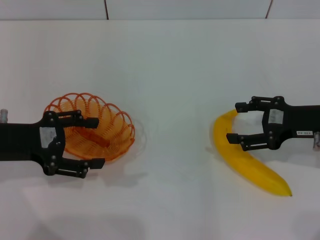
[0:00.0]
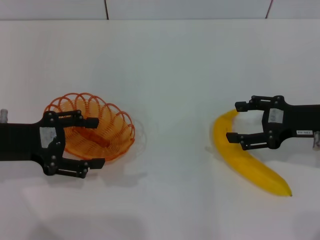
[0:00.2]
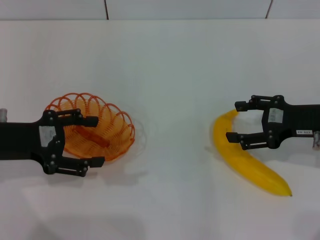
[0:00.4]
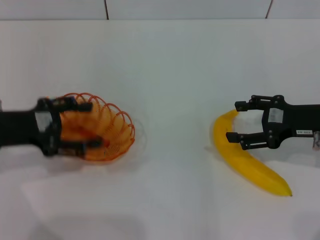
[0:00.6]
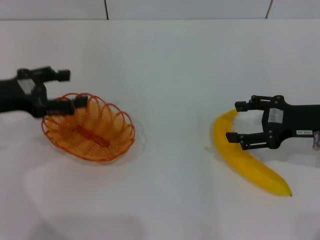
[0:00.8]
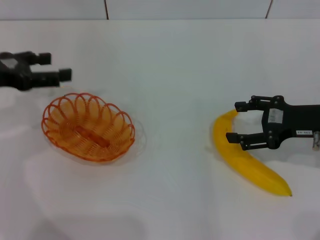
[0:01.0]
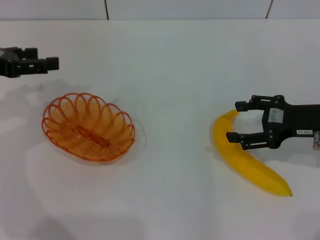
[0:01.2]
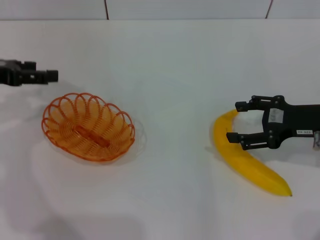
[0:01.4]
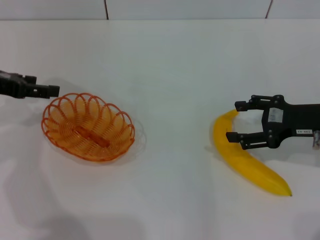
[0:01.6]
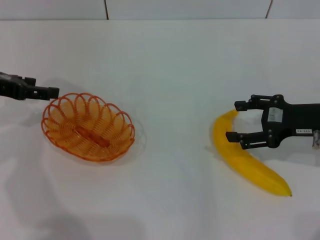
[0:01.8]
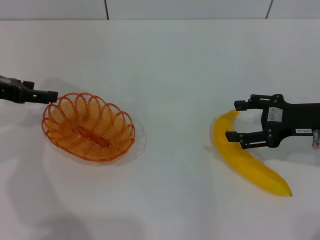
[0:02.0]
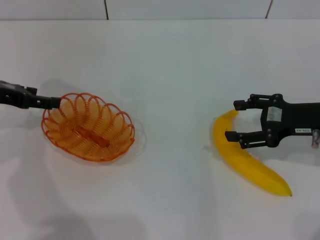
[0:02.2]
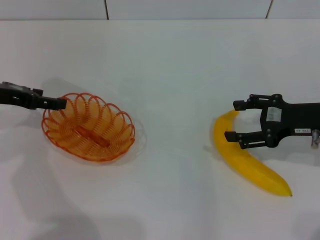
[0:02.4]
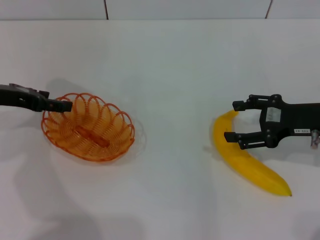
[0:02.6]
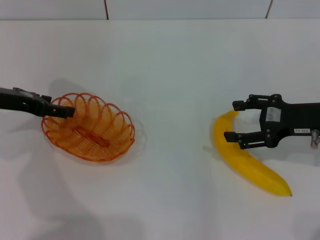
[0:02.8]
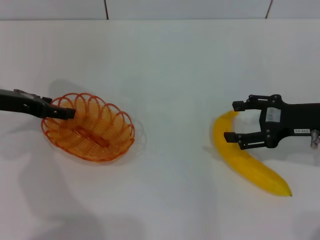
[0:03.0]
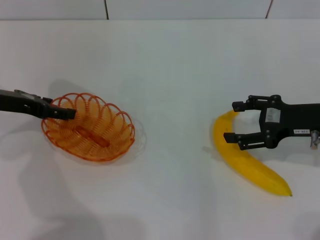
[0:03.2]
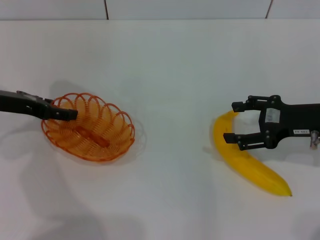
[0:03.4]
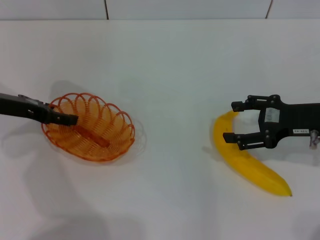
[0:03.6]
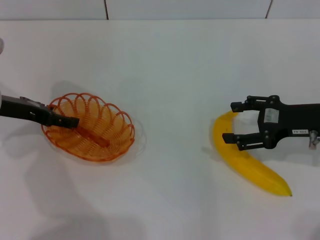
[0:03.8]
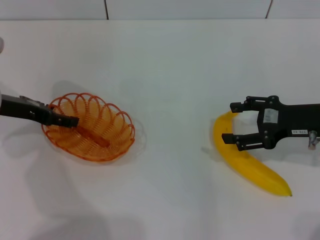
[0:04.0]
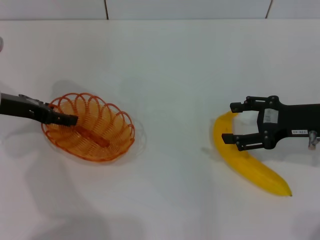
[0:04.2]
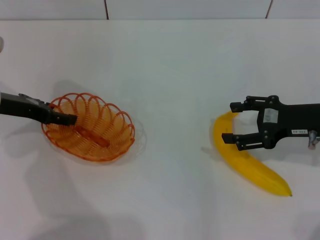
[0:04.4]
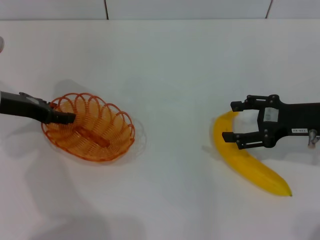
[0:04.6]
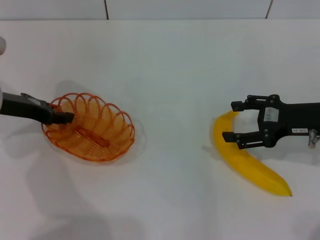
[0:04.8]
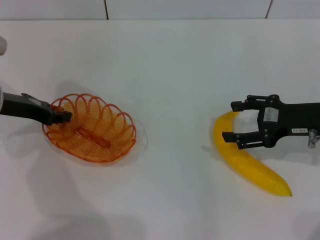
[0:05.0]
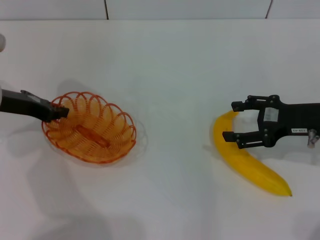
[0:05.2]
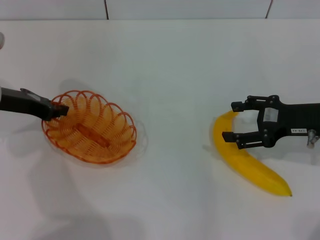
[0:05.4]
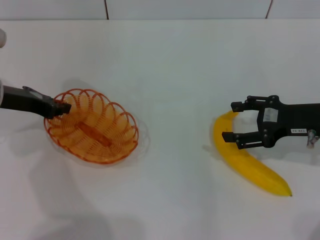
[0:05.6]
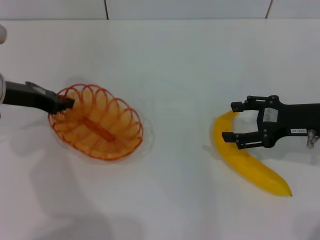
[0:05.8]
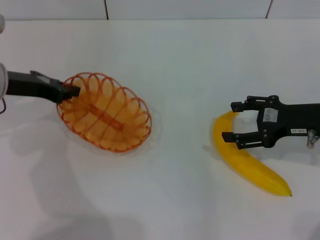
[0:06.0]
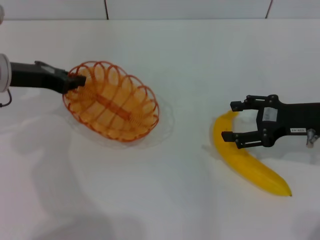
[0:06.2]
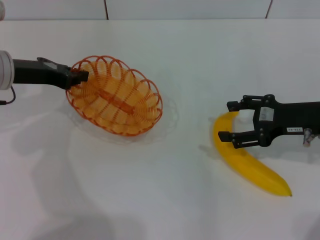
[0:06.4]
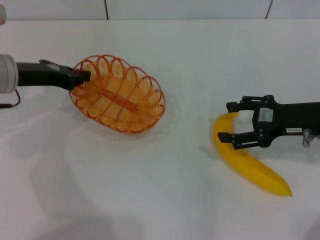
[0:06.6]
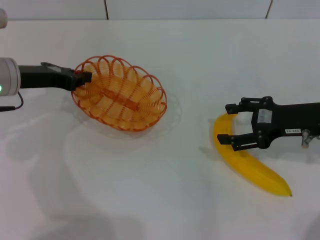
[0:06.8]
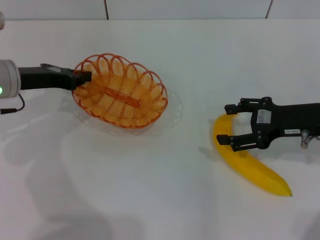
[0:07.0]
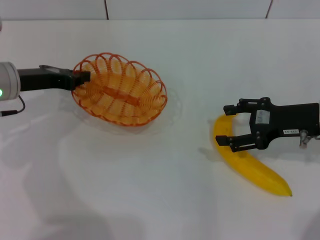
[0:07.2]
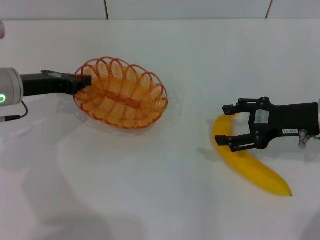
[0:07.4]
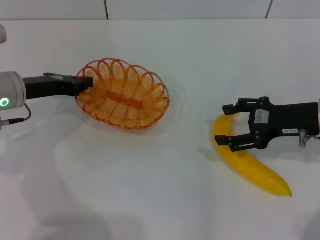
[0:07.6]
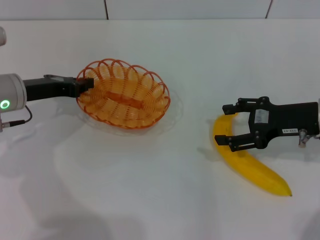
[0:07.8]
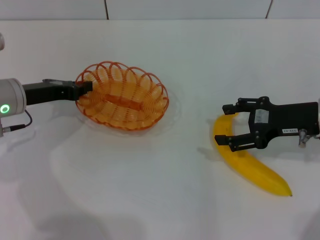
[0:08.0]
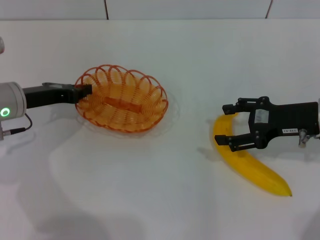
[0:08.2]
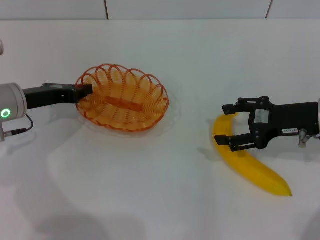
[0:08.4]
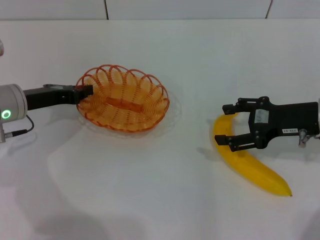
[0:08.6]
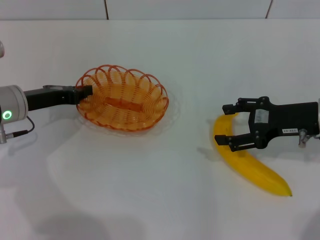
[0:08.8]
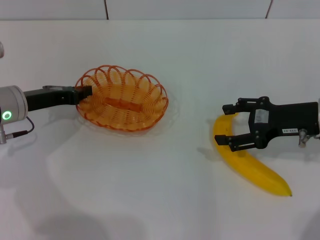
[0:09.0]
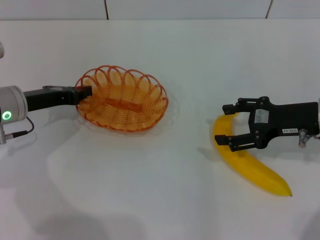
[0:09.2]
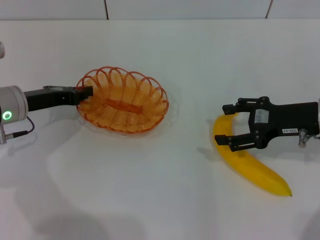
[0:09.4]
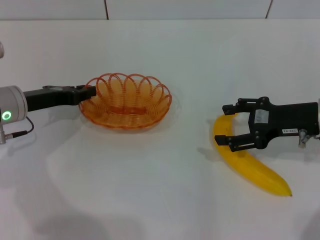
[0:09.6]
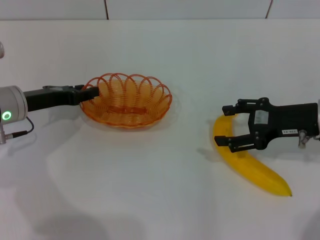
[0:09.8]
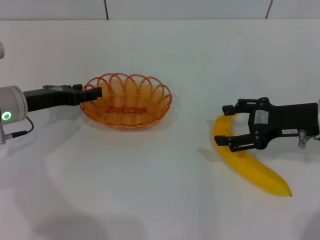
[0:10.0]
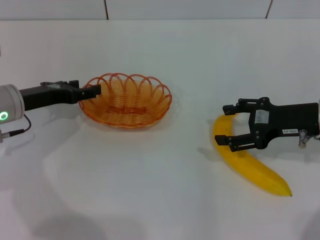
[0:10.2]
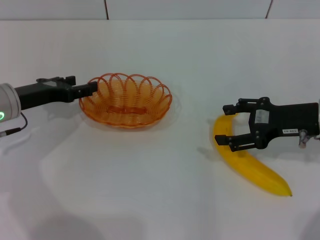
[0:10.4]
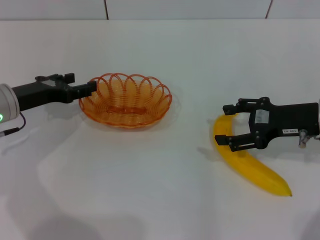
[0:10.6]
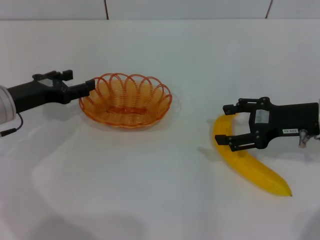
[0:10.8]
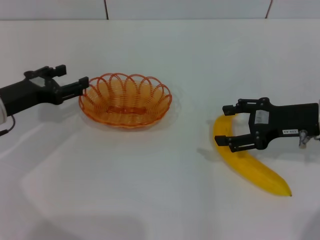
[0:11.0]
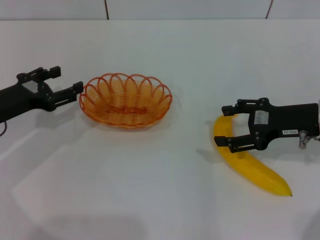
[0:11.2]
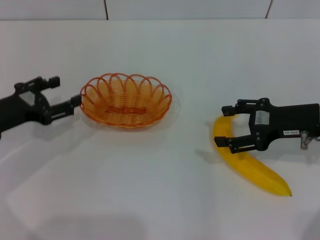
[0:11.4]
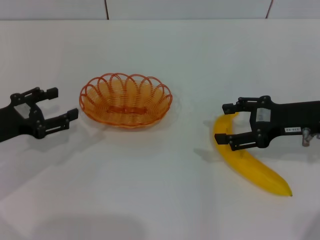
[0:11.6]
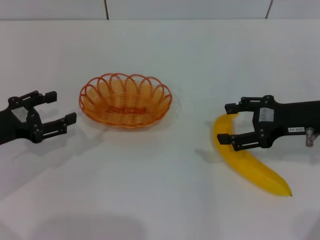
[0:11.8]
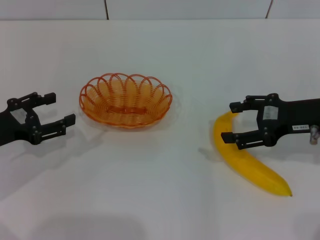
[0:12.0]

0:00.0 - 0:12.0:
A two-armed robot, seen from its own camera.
Step, 0:00.0 - 0:06.0: Pick up the basket with the left gripper.
Step, 0:06.2 - 0:11.0: Place the basket in the center of view with the left gripper.
0:00.0 - 0:01.6: The left gripper heads forward, covering about 5 cm.
0:01.6 - 0:03.0: The grippers stay close to where they were, moving slightly.
0:03.0 - 0:04.4: Both grippers stay about where they are.
0:04.4 - 0:06.0: The left gripper closes.
0:06.0 - 0:07.6: The grippers make only small movements.
0:07.6 - 0:09.0: The grippers move only a little.
0:09.0 - 0:10.4: The left gripper opens.
0:10.4 - 0:12.0: The left gripper goes some 5 cm backward.

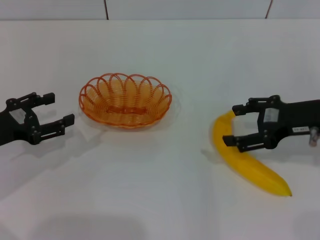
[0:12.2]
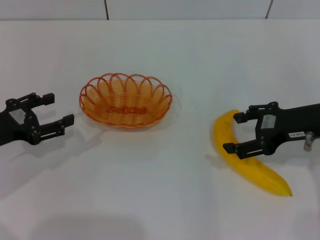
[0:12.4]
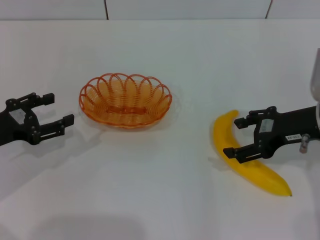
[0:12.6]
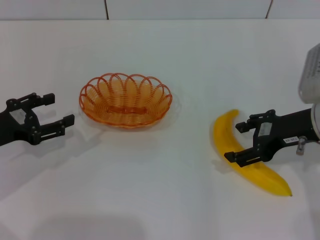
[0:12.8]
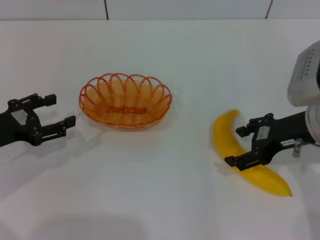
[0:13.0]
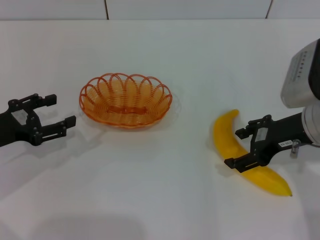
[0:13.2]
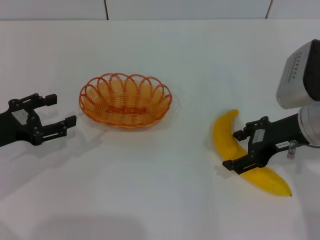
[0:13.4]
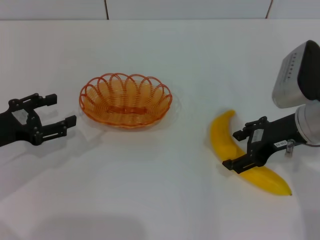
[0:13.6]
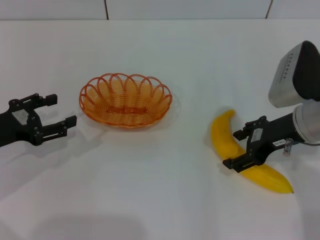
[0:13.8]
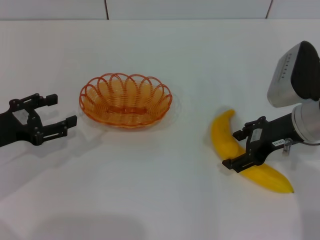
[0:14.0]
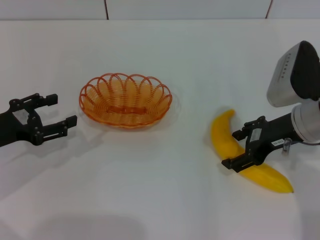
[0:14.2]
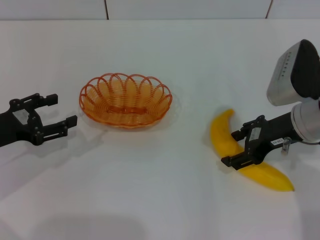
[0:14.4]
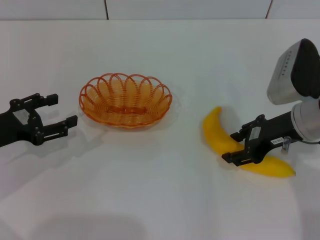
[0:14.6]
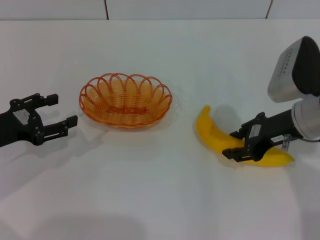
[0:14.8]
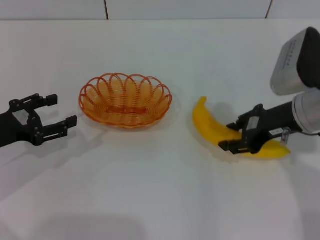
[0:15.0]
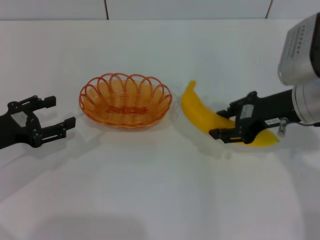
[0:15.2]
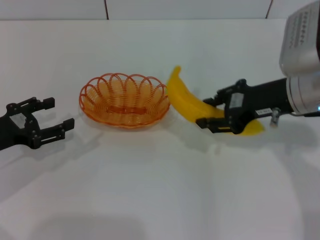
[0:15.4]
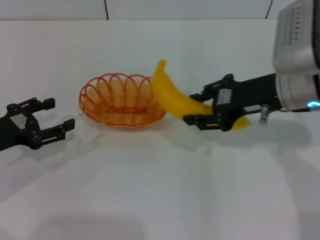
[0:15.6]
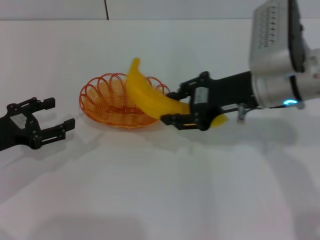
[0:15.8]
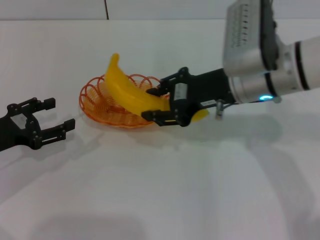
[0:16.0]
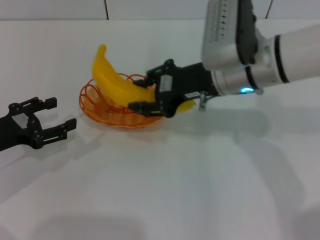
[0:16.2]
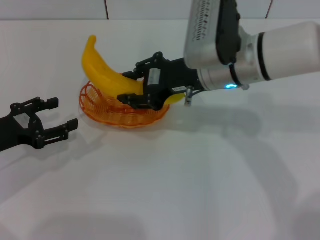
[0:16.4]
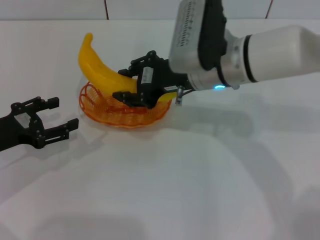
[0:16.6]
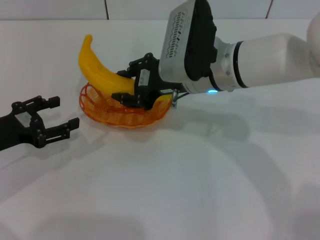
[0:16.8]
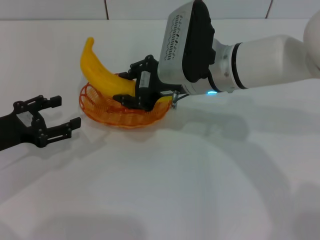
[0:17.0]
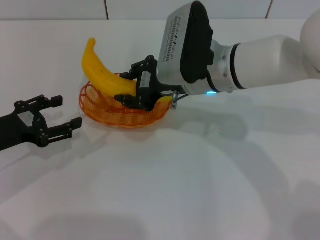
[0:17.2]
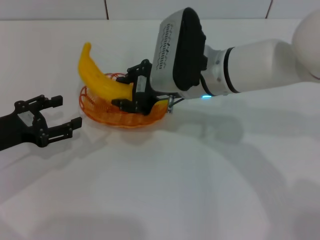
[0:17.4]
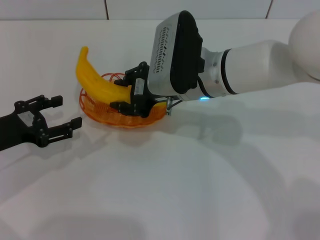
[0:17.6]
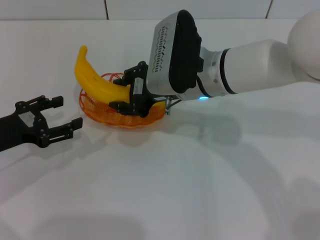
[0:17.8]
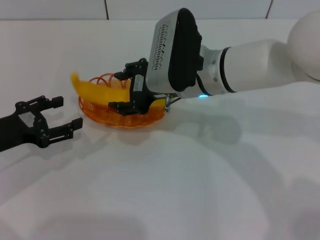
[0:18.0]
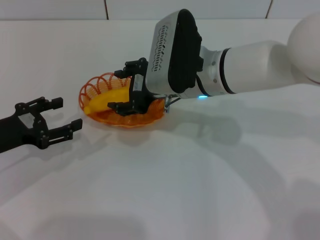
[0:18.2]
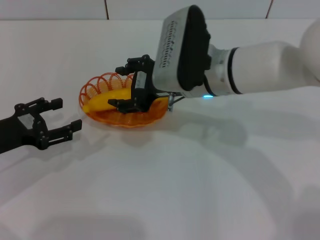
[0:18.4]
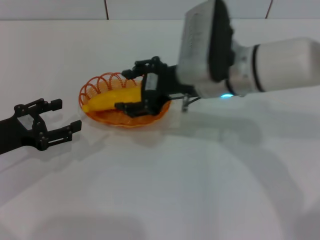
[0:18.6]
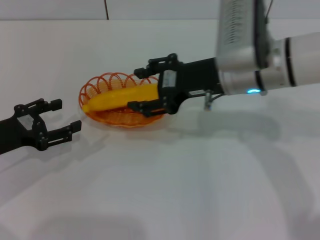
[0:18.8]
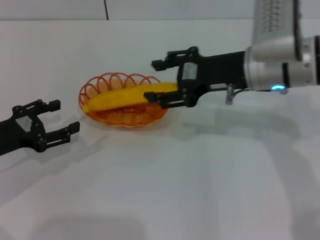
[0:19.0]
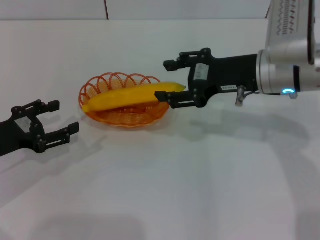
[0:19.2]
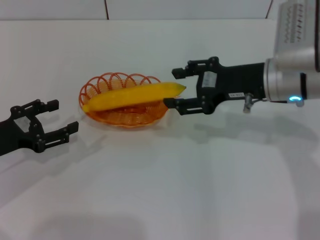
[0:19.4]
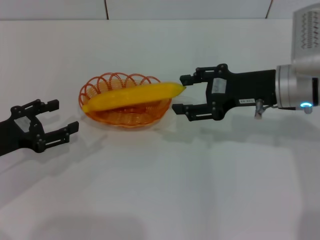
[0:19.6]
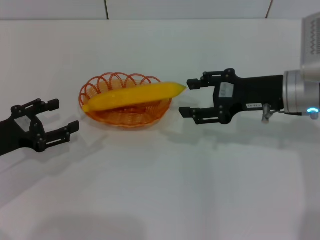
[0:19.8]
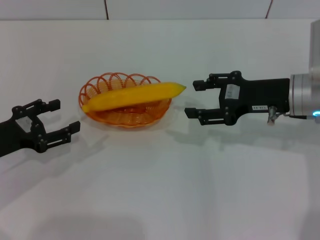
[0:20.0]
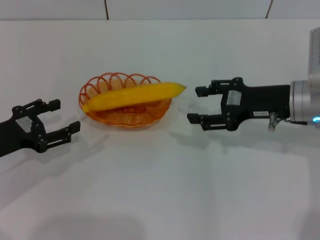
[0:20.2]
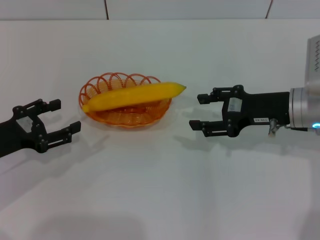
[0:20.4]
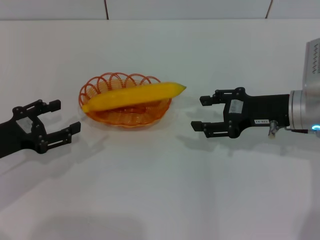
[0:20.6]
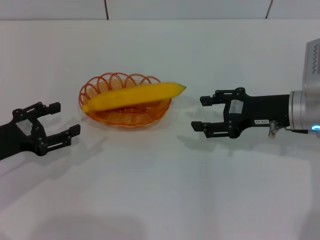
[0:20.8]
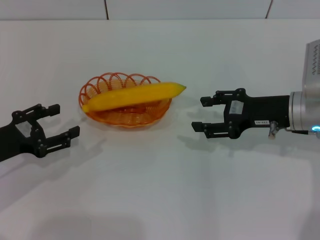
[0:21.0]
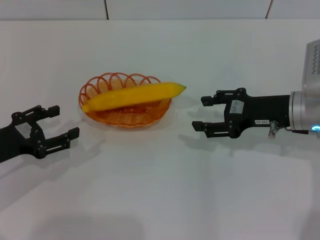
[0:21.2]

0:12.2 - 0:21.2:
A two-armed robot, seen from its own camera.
Step, 0:12.2 - 0:15.0: Pick up the banana with the right gripper.
Step, 0:15.2 - 0:18.6: Place the banana into the basket with the right gripper.
0:13.8 - 0:15.2: The right gripper closes.
0:15.2 - 0:16.6: The right gripper goes roughly 15 cm to the left.
0:16.6 - 0:18.2: The right gripper opens.
0:18.2 - 0:19.8: The right gripper shifts about 15 cm to the right.
0:19.8 - 0:21.2: The grippers make only small movements.

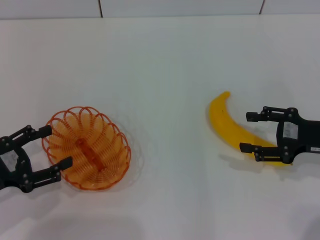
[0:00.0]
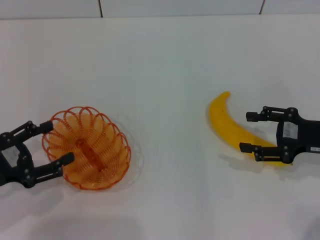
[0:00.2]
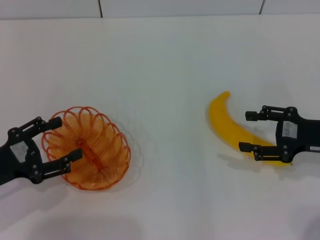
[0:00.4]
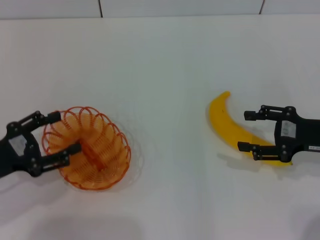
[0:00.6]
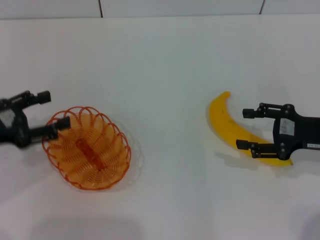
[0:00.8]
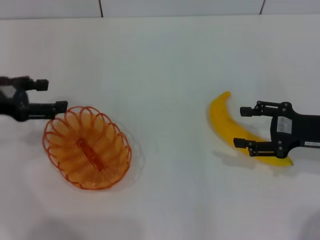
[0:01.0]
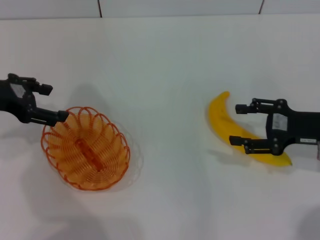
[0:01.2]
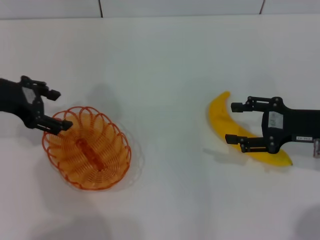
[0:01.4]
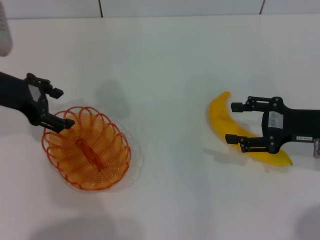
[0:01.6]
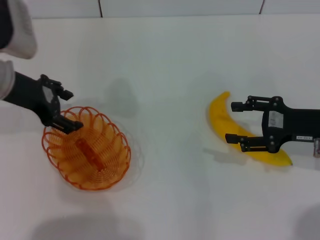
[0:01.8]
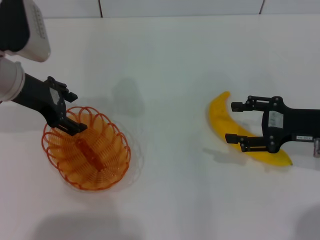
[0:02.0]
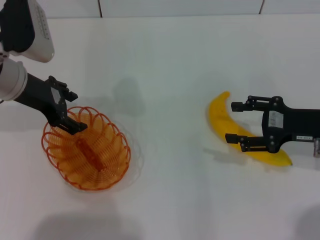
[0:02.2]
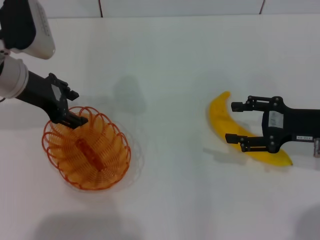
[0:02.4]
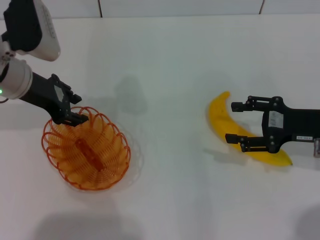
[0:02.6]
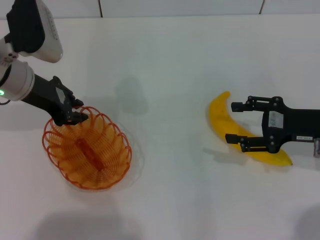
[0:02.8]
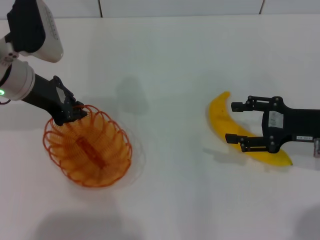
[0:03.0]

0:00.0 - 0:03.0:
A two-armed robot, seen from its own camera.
0:00.0 - 0:01.6: The left gripper shifts some 20 cm forward, upward and to the right.
0:01.6 - 0:03.0: The left gripper ends up some 5 cm from where it was, and closes up.
